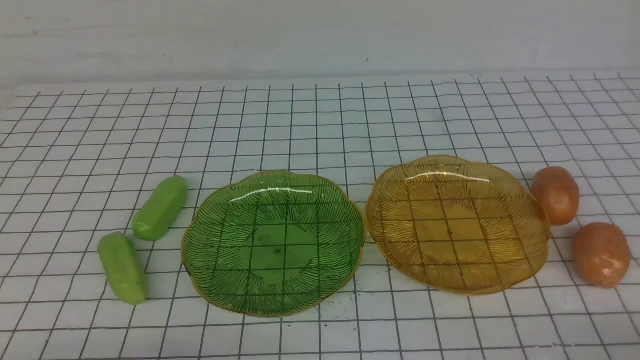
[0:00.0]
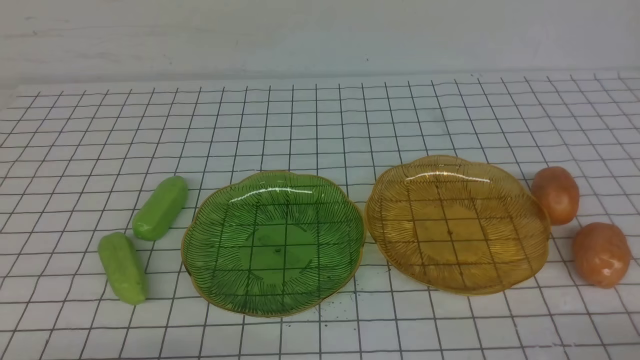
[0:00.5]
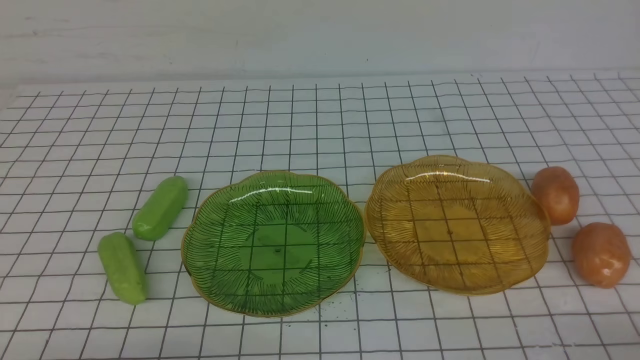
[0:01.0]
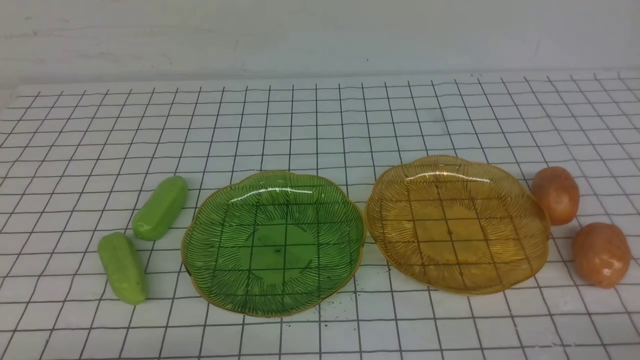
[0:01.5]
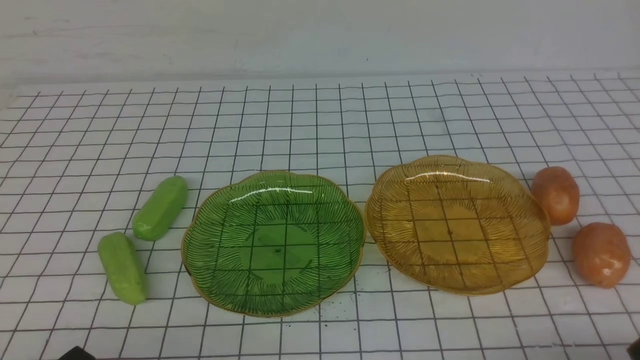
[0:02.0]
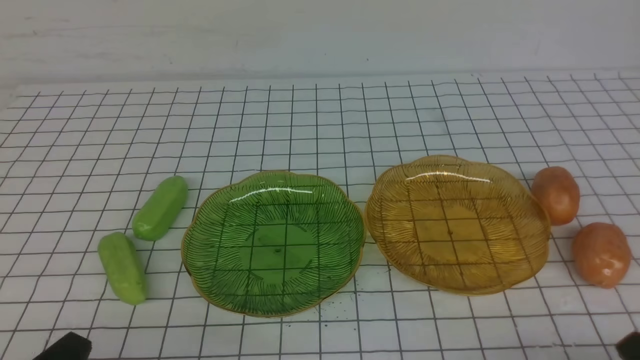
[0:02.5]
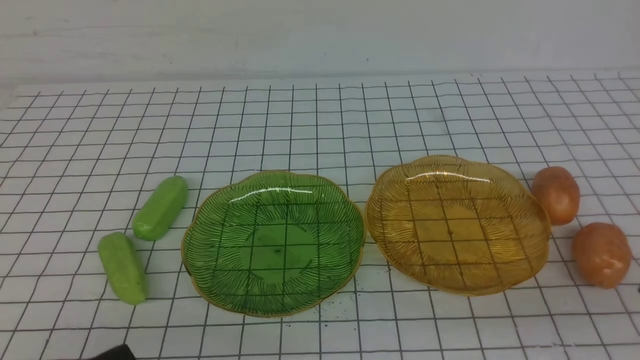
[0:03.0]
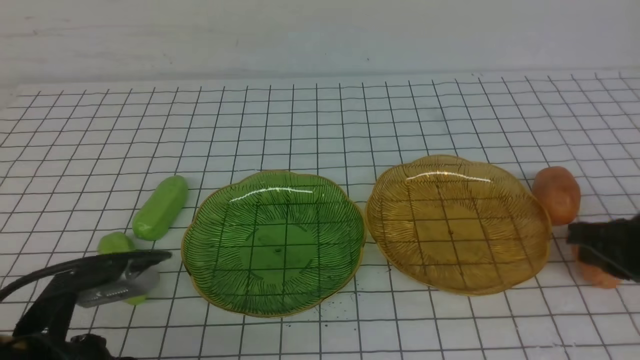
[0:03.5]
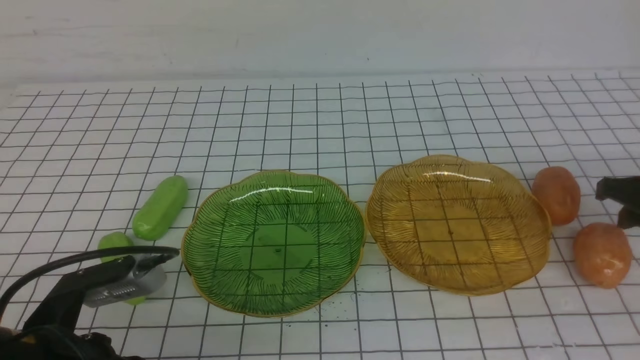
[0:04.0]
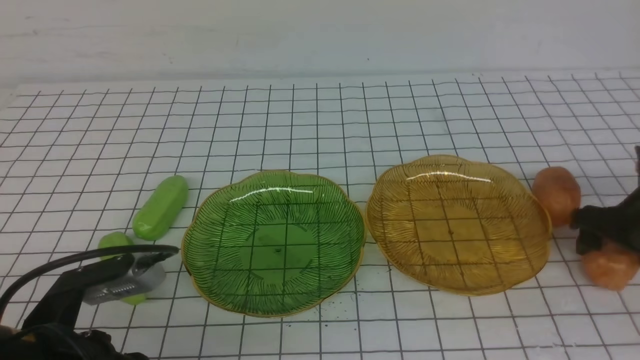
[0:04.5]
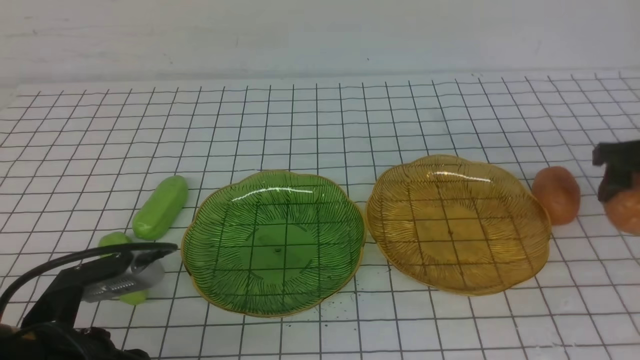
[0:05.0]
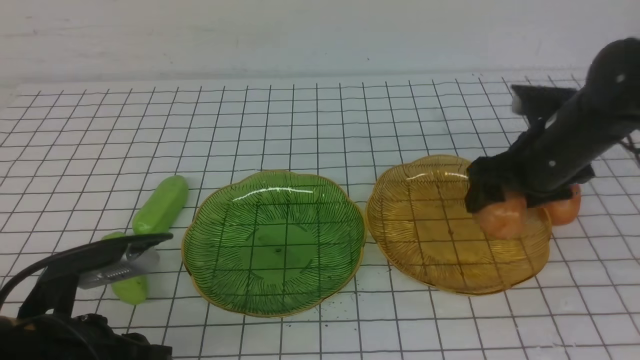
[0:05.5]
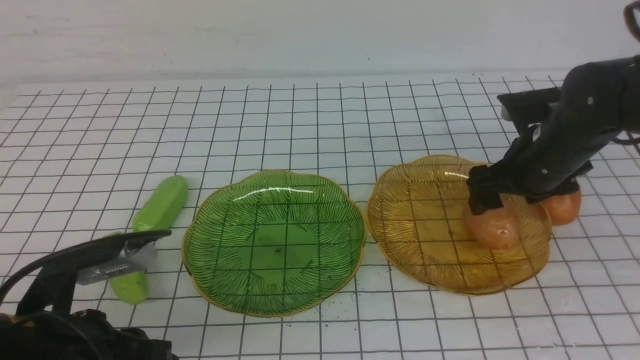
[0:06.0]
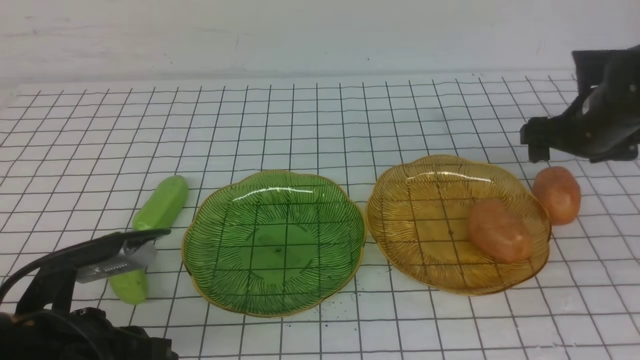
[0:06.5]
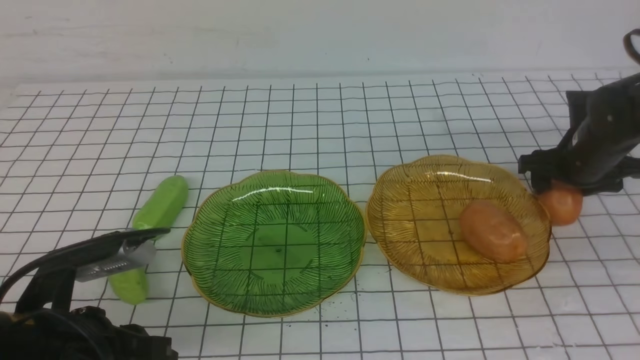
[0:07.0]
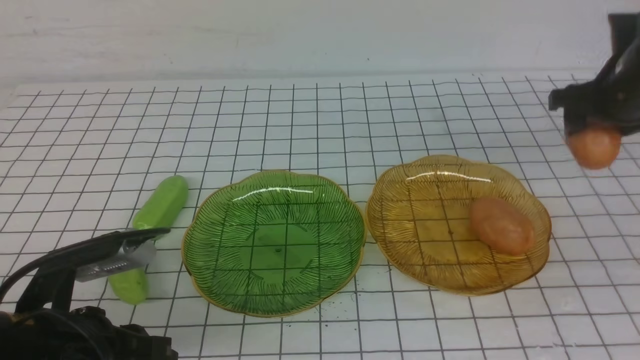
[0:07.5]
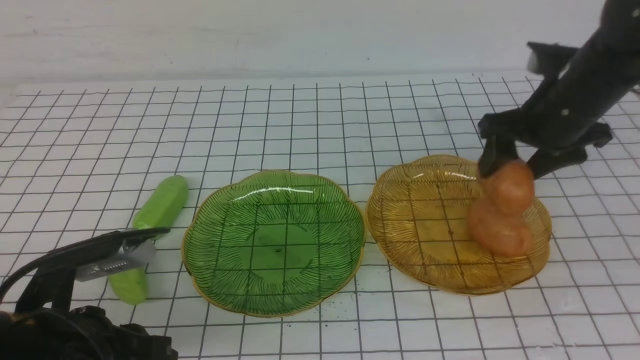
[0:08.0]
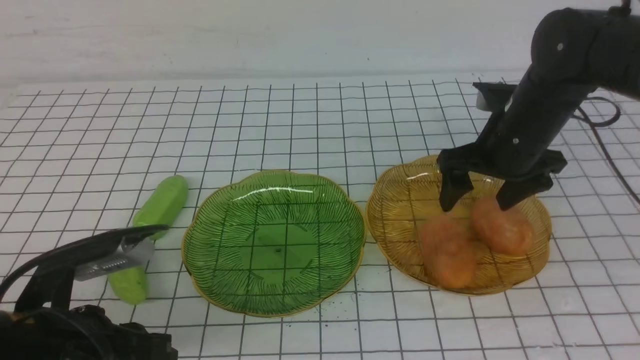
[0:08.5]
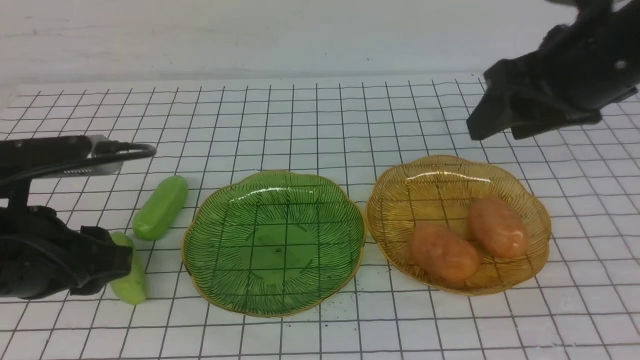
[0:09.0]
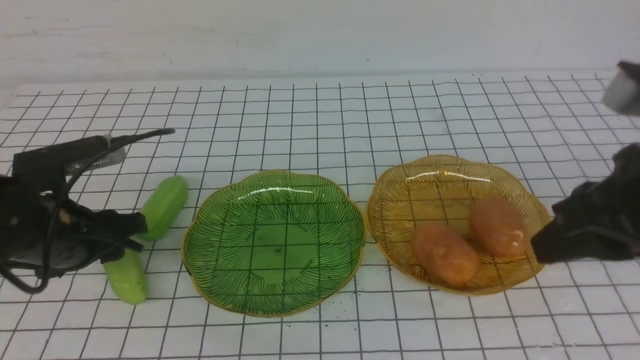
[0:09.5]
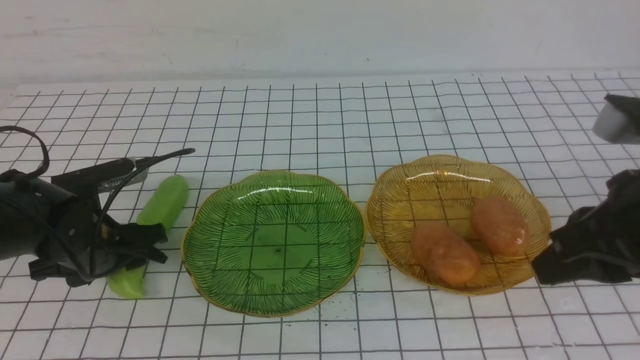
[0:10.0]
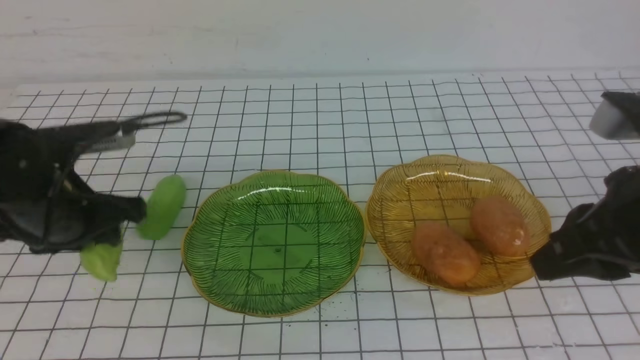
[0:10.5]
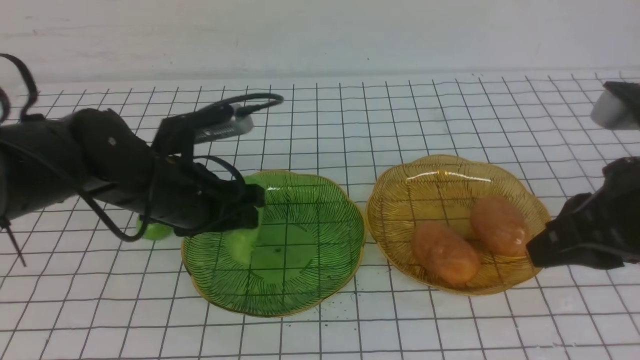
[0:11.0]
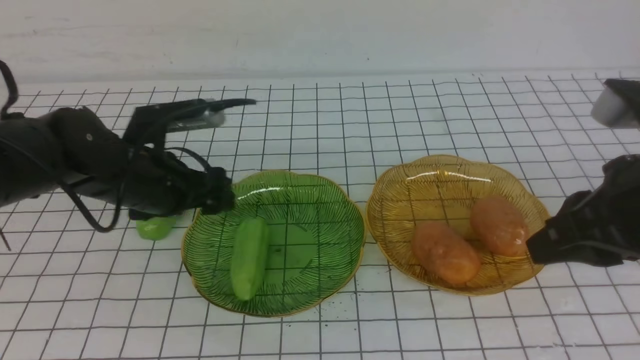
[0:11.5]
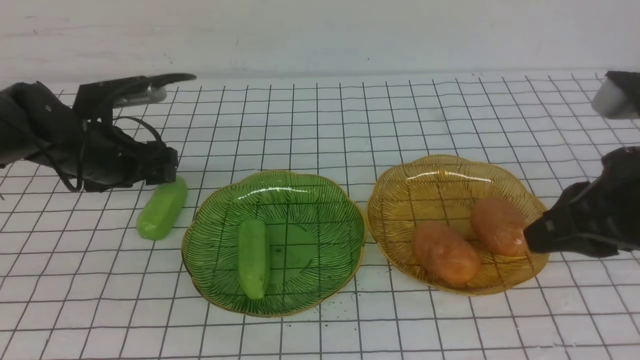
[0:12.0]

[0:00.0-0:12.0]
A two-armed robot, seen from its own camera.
Step, 0:00.0 to 0:06.0: Grab a potato with your right arm and put it on the right plate.
Step, 0:06.5 to 0:08.0: Grab a potato with your right arm and put it on the right plate.
Step, 0:08.5 to 0:11.0: use the left arm to grab a chayote and put it into the left plate.
0:02.0 to 0:04.0: The right gripper is displaced forward by some 25 cm, and opens. Meanwhile the left gripper heads forward, covering roughly 10 cm.
0:04.0 to 0:06.0: The right gripper travels to the left and forward by some 15 cm, and opens.
0:06.0 to 0:08.0: The right gripper goes approximately 5 cm upward.
0:08.0 to 0:10.0: The left gripper goes some 15 cm forward, and opens, while the right gripper is displaced backward by about 20 cm, and closes up.
0:10.0 to 0:12.0: The left gripper is displaced forward by approximately 10 cm, and travels to the right and back again, some 10 cm each way.

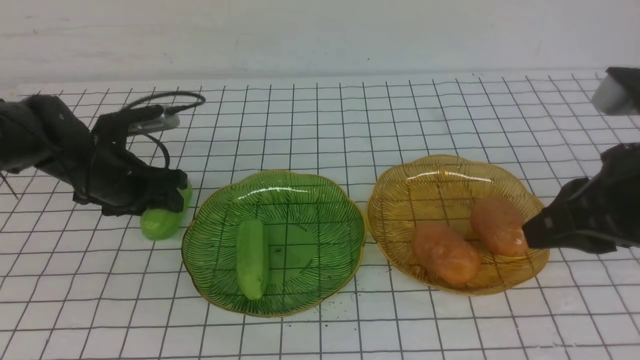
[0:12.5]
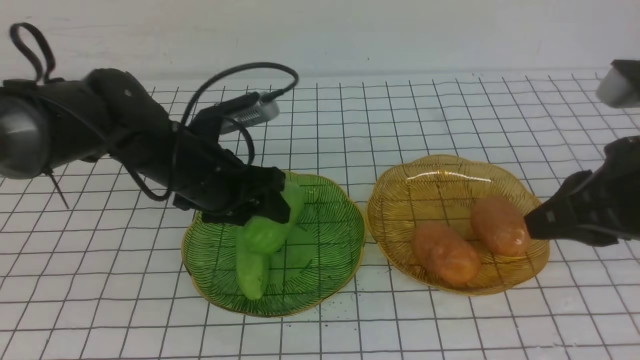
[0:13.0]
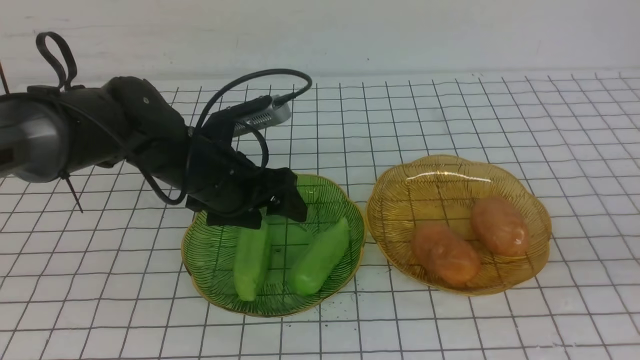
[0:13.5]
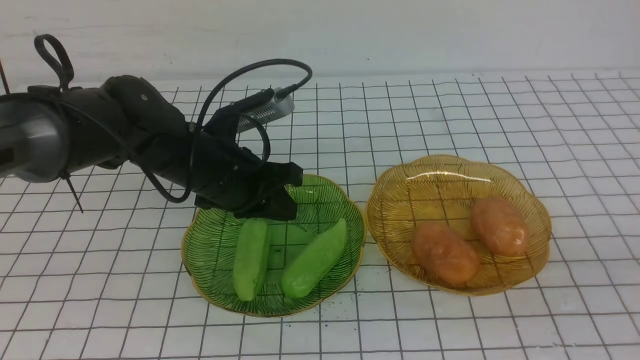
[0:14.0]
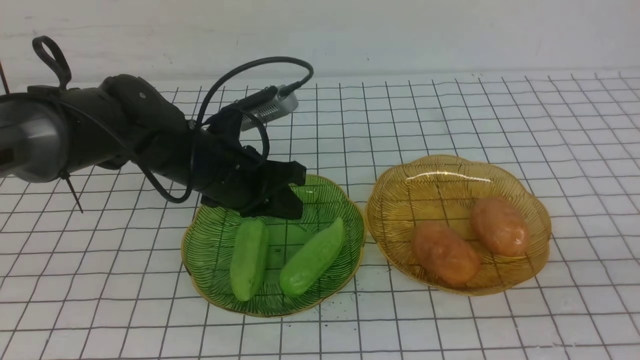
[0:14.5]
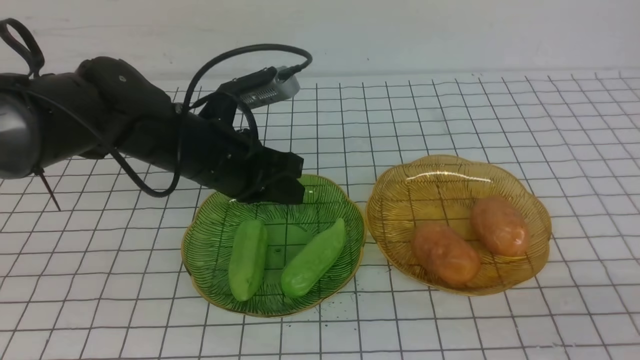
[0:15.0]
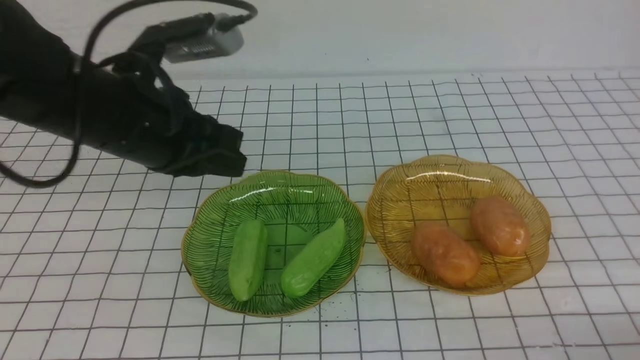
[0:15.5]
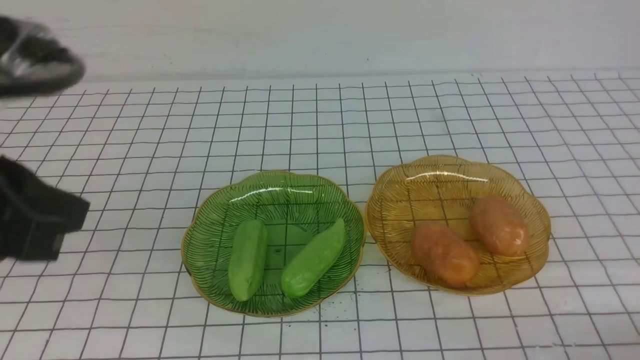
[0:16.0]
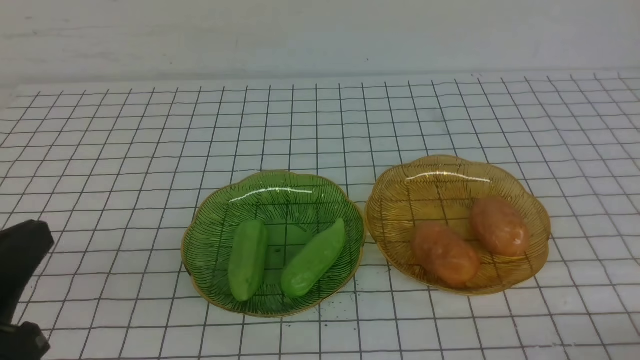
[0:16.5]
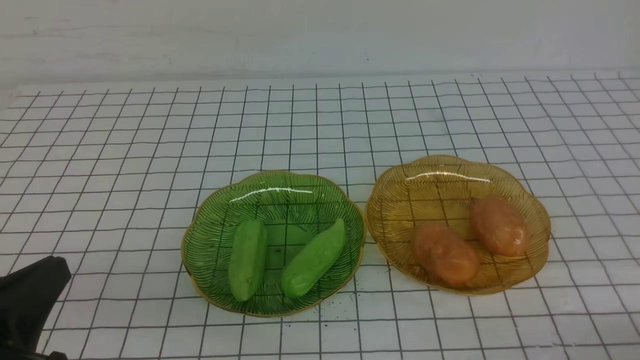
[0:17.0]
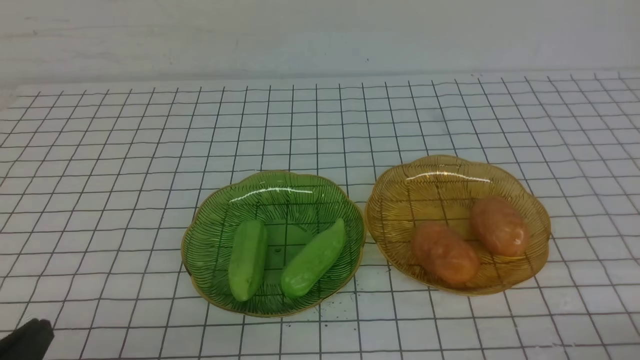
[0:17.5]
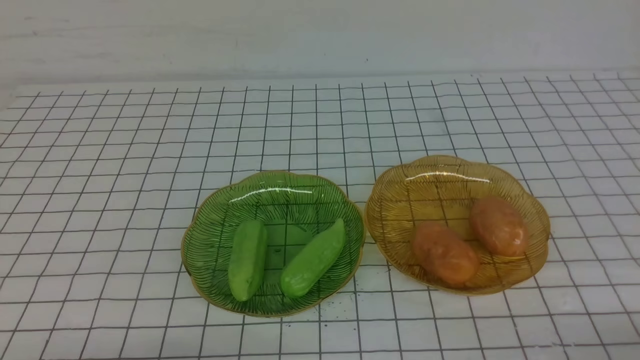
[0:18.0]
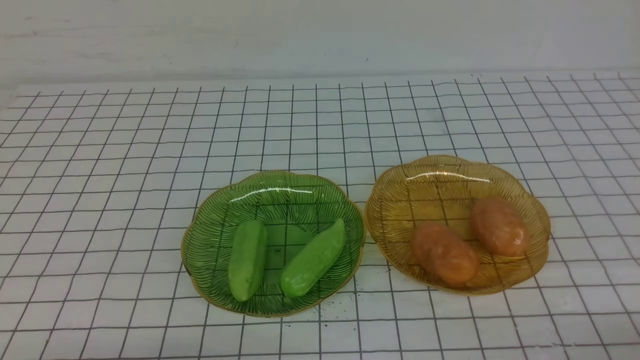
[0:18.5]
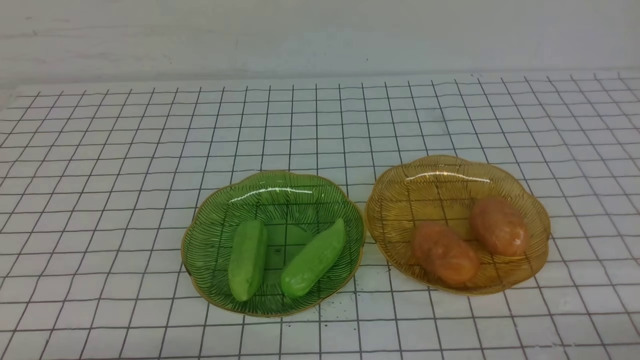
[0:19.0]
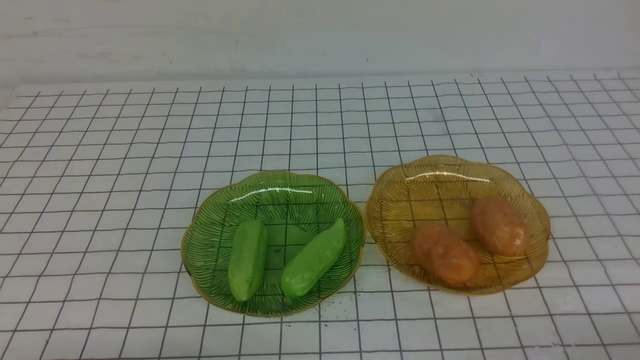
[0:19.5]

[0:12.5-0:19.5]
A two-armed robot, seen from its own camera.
0:12.5 to 0:14.5: The left gripper moves to the right, roughly 10 cm, and closes up. The right gripper shifts about 15 cm backward and to the right.
0:14.5 to 0:16.0: The left gripper goes approximately 30 cm backward, upward and to the left, while the right gripper moves downward, roughly 10 cm.
0:16.0 to 0:17.5: The left gripper shifts approximately 20 cm downward and backward.

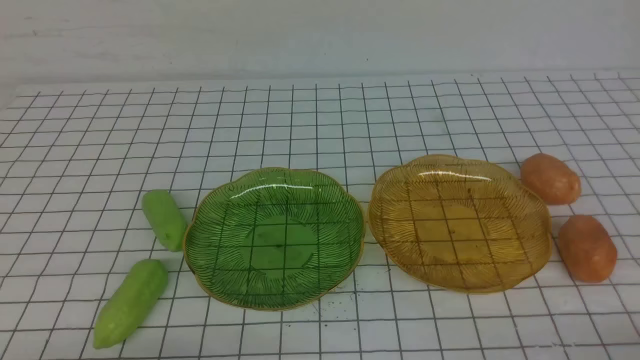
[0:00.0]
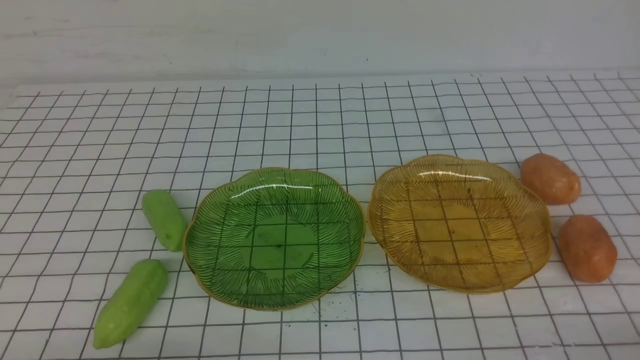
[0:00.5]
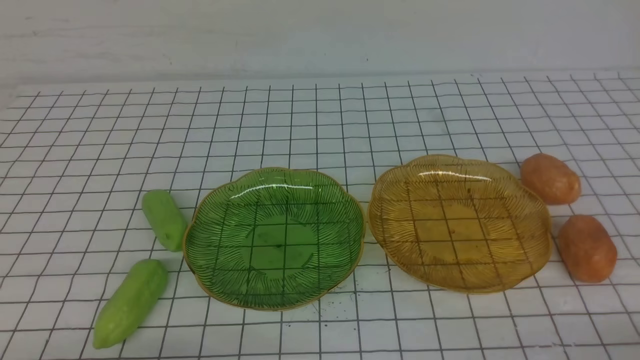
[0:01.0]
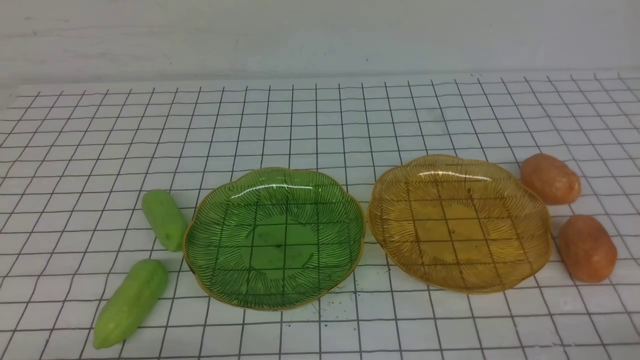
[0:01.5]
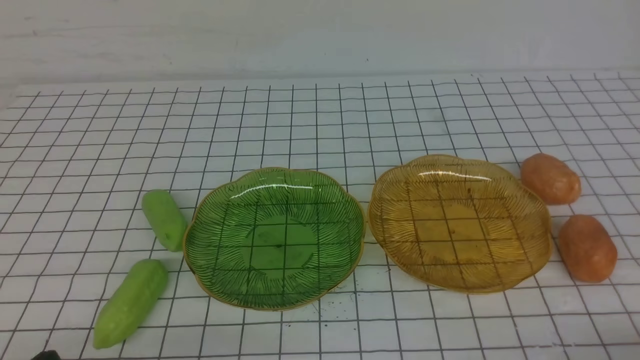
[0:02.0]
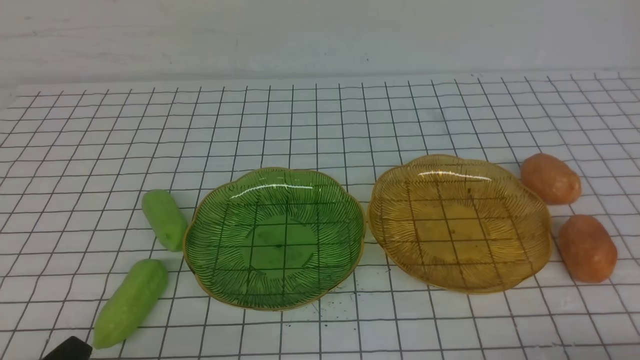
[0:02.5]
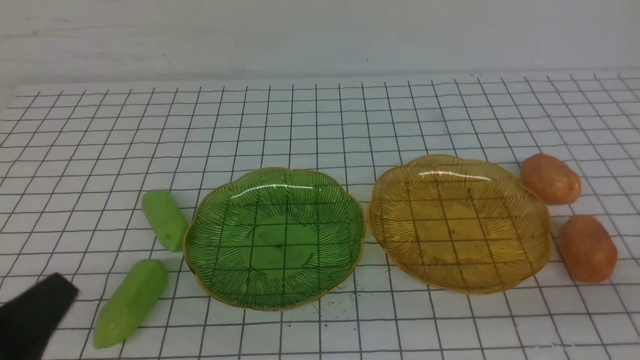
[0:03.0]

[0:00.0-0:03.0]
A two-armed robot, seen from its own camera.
0:00.0 to 0:01.5: Both grippers stay about where they are.
0:01.5 to 0:03.0: Both grippers travel together upward, some 10 cm.
